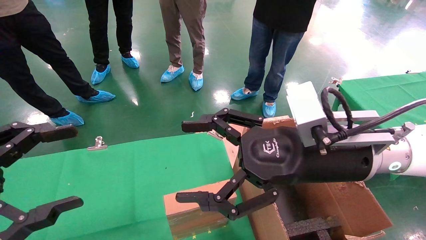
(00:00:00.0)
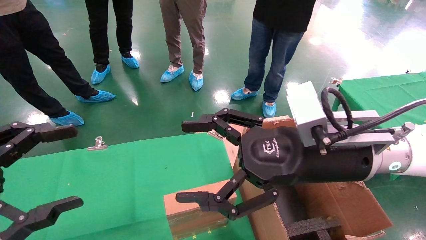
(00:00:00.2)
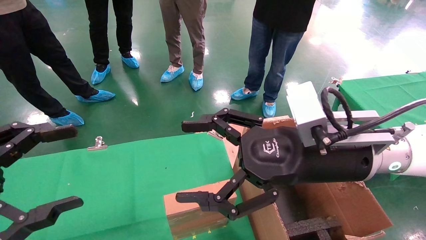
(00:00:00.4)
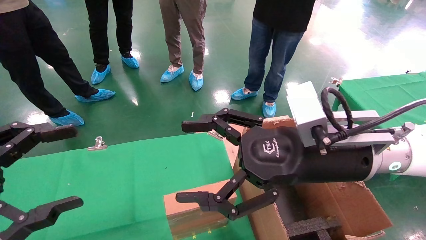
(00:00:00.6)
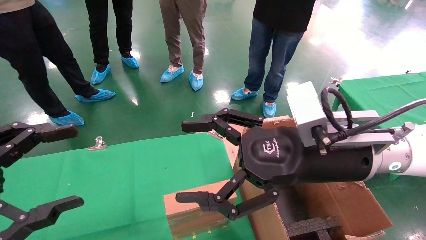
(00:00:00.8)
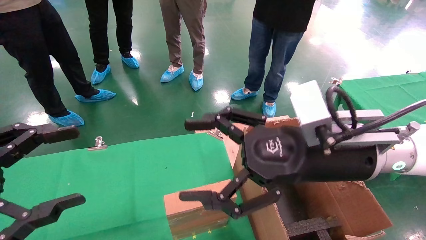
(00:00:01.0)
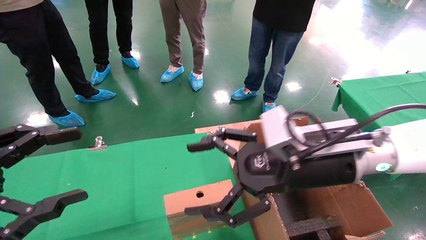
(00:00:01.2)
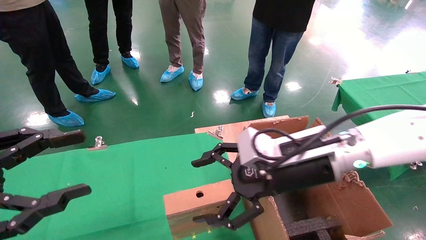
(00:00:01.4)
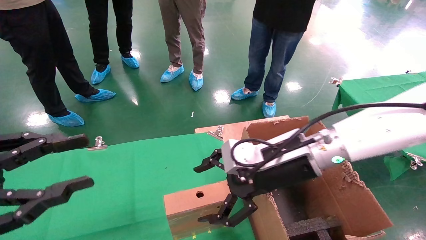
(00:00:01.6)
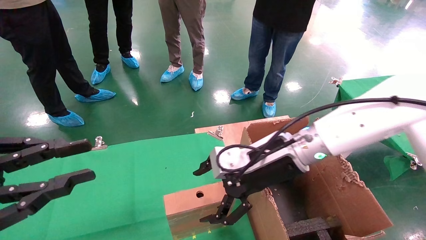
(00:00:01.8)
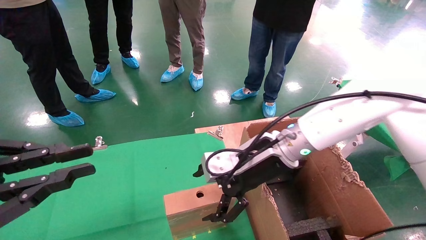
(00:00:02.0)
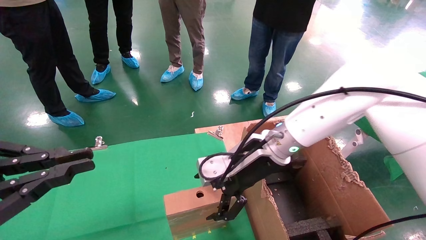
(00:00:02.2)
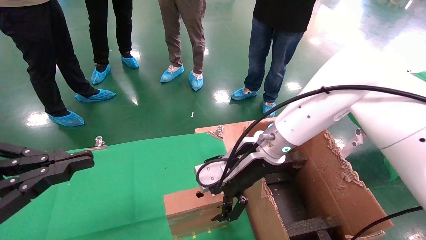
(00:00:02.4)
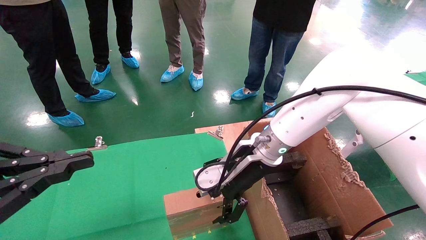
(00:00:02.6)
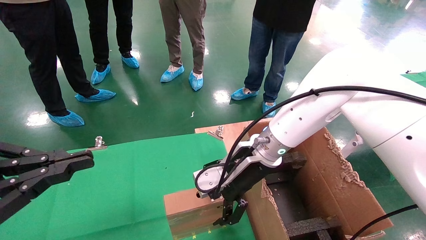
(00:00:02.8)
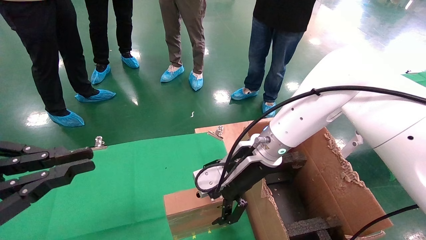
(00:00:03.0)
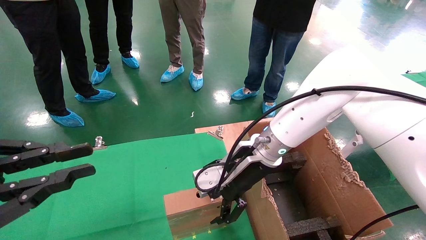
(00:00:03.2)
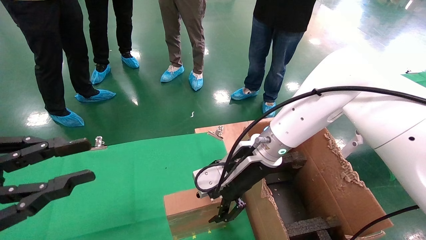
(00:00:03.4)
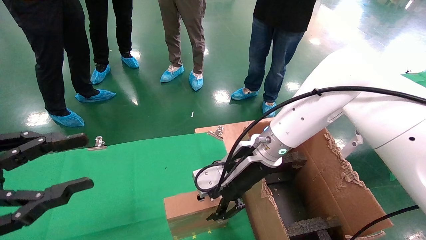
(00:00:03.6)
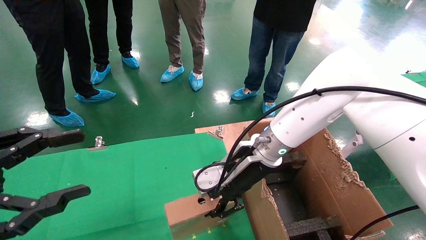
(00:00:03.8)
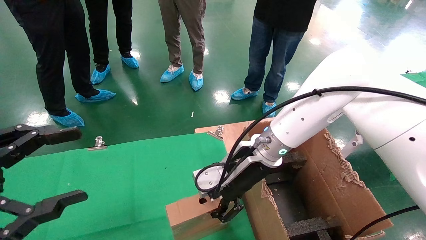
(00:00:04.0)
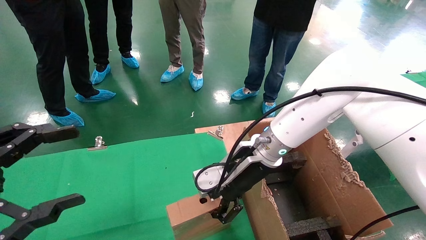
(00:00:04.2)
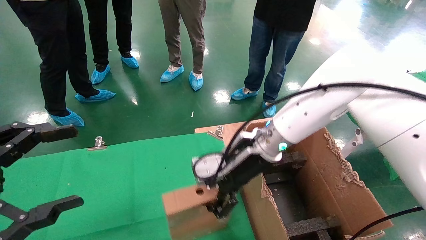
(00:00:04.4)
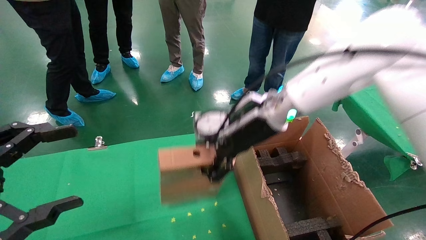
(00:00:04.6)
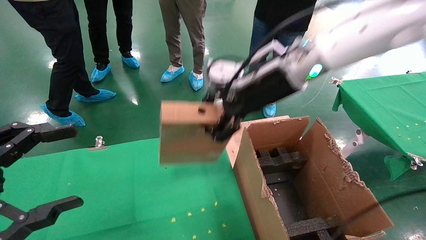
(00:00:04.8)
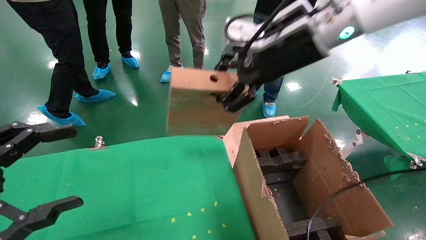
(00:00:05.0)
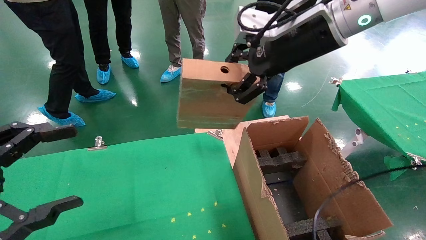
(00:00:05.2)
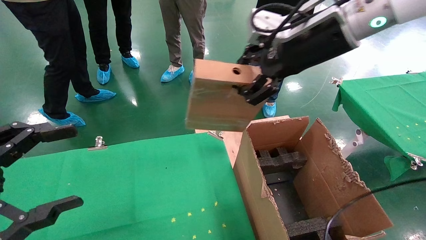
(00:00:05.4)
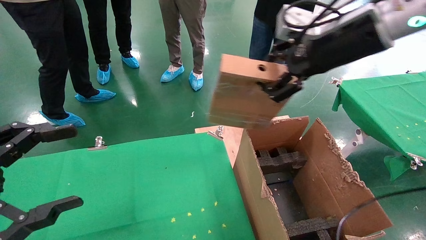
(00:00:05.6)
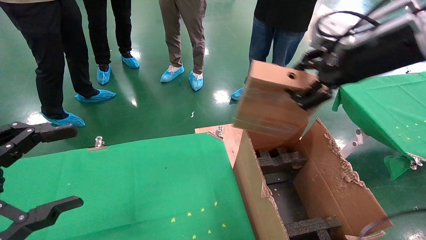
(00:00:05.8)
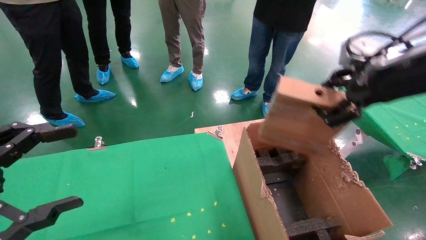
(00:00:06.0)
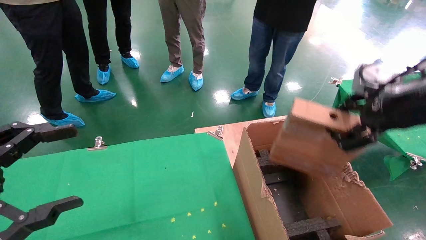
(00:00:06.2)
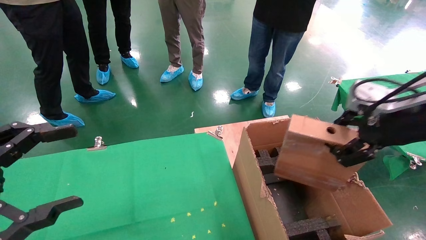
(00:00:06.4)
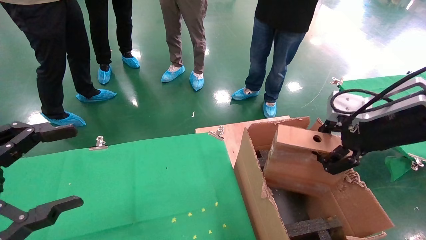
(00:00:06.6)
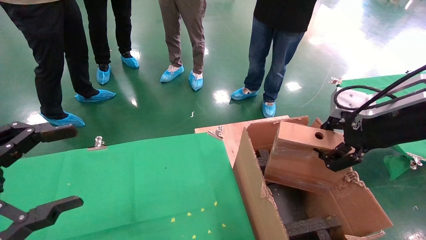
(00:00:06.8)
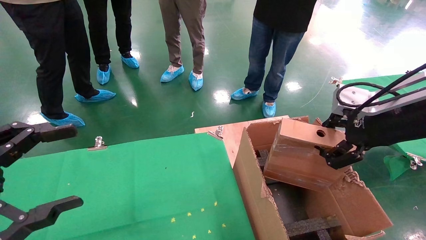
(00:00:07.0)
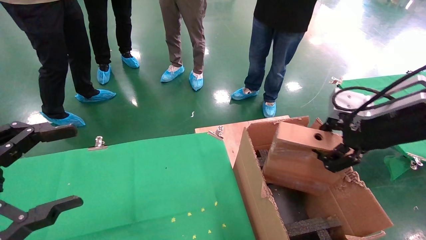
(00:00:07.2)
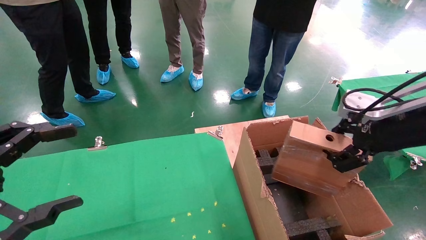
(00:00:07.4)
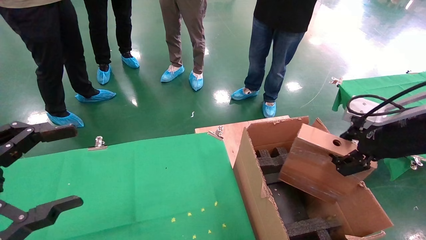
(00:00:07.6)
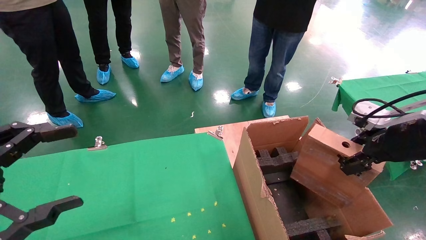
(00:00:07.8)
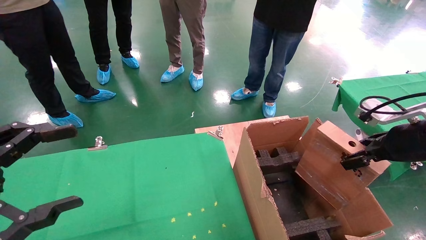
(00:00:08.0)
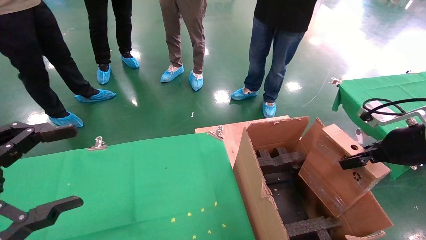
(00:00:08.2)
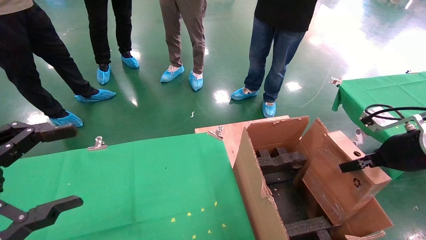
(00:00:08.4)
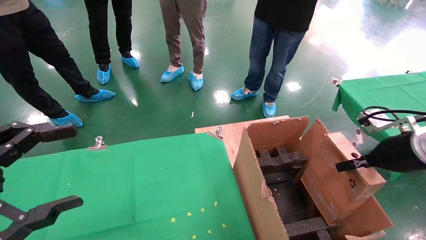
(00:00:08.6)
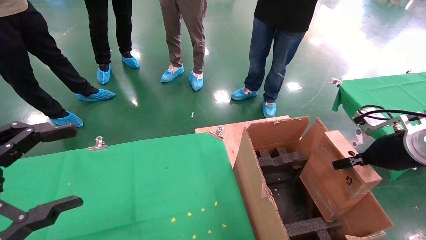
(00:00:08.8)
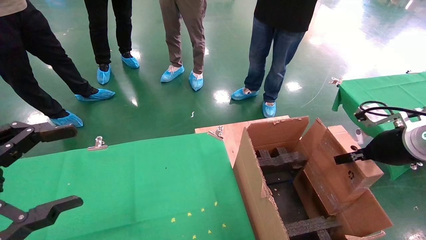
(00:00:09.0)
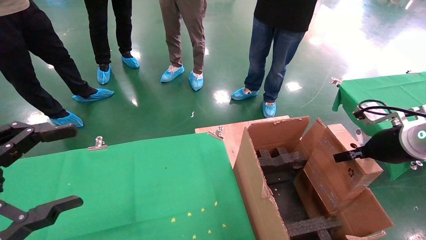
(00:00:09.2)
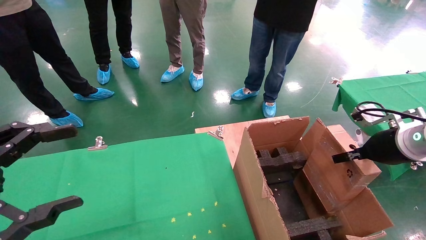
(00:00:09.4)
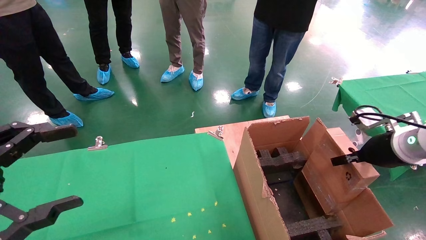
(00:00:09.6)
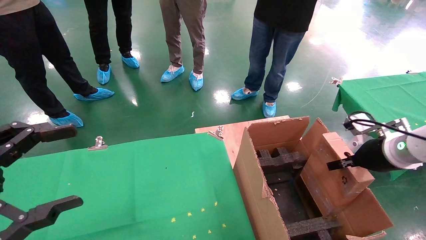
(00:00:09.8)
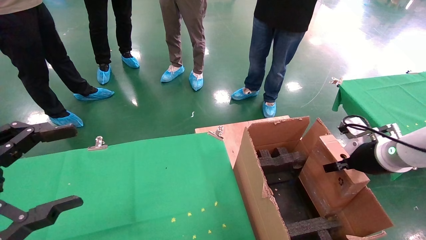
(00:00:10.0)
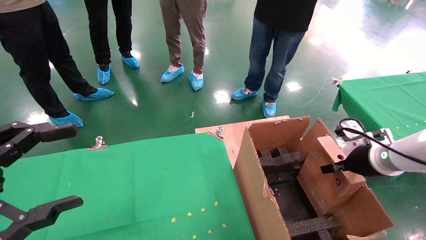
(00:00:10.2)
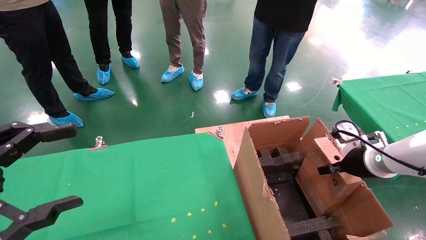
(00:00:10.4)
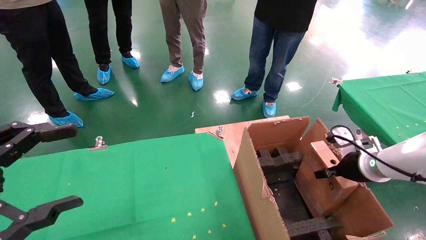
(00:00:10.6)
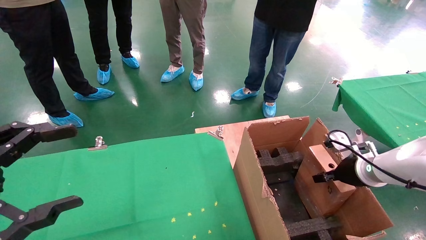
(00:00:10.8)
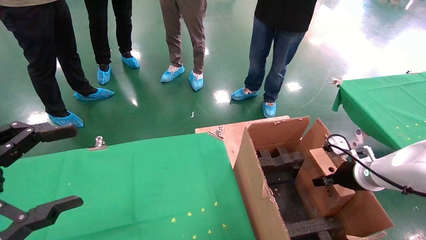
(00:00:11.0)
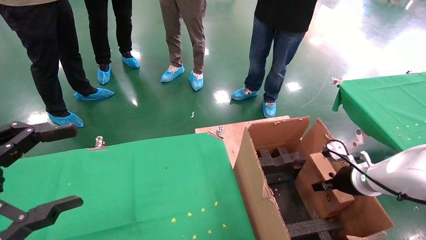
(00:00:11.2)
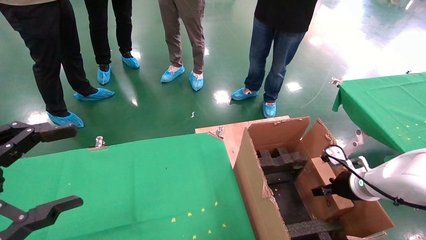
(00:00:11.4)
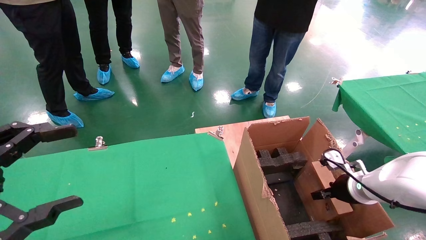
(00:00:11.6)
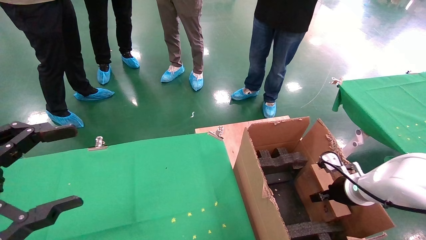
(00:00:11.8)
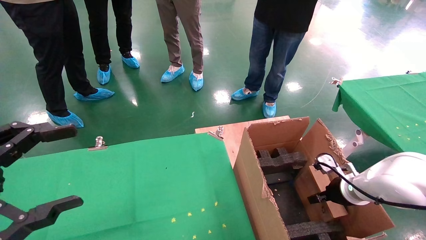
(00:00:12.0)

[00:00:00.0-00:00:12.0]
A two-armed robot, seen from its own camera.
Task of the whole recording: using a robotic arm to pick up a cardboard box and palace it the carton.
Step, 00:00:01.2 to 00:00:03.8: Pick up the mouse and the power cord paper box.
00:00:00.0 to 00:00:01.6: The left gripper closes its fingers; the right gripper goes approximately 5 cm forward.
00:00:01.6 to 00:00:03.0: The left gripper closes; the right gripper is displaced forward by about 5 cm.
00:00:03.0 to 00:00:04.4: The right gripper closes. The left gripper opens.
00:00:04.4 to 00:00:06.0: The right gripper is displaced to the right, upward and backward by approximately 30 cm.
00:00:06.0 to 00:00:07.6: The right gripper is displaced downward by about 10 cm.
00:00:07.6 to 00:00:09.0: The right gripper is displaced downward by about 5 cm.
00:00:09.0 to 00:00:10.4: The right gripper heads downward, covering some 5 cm.
00:00:10.4 to 00:00:12.0: The right gripper shifts about 10 cm downward.

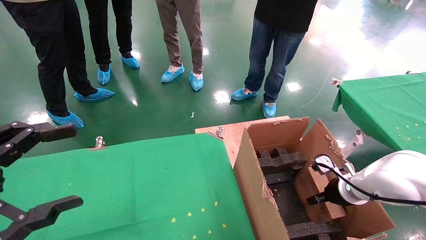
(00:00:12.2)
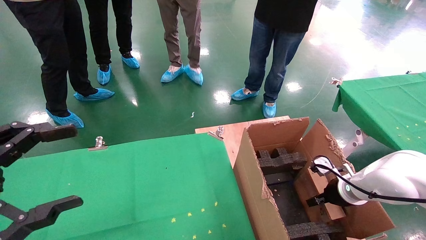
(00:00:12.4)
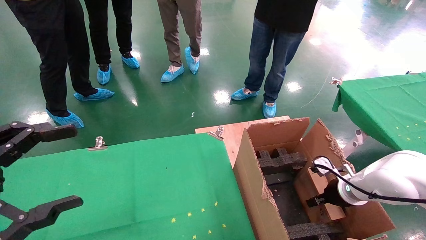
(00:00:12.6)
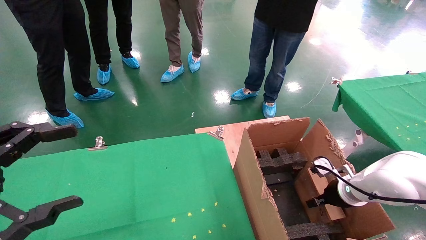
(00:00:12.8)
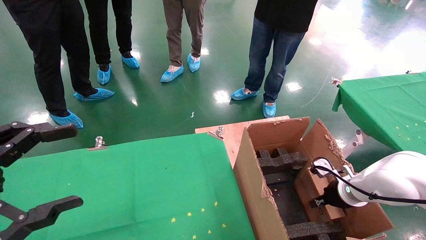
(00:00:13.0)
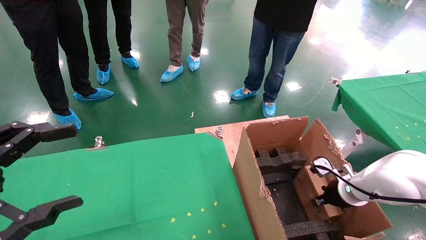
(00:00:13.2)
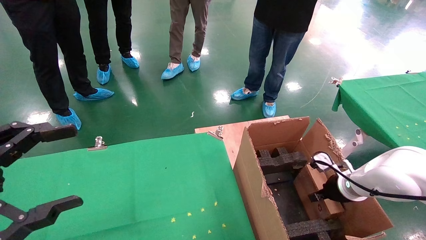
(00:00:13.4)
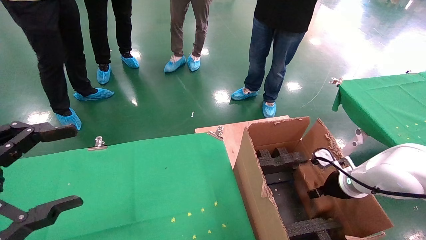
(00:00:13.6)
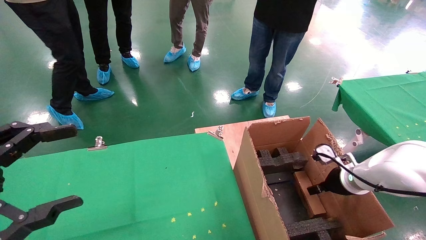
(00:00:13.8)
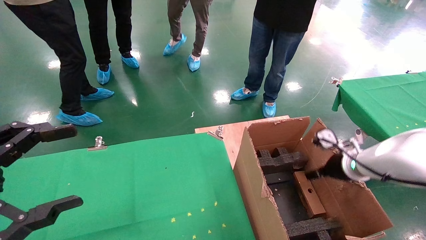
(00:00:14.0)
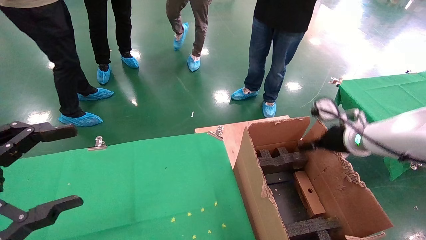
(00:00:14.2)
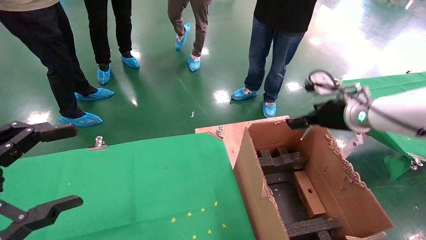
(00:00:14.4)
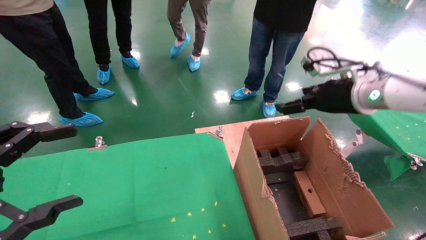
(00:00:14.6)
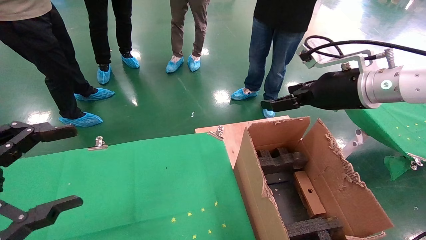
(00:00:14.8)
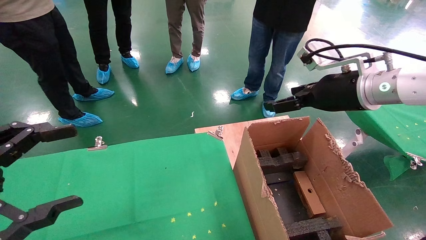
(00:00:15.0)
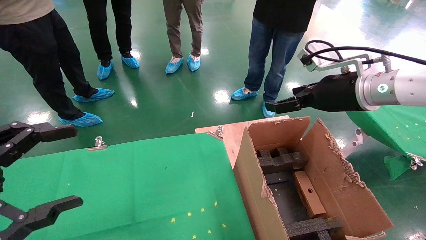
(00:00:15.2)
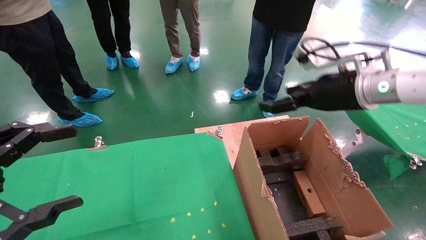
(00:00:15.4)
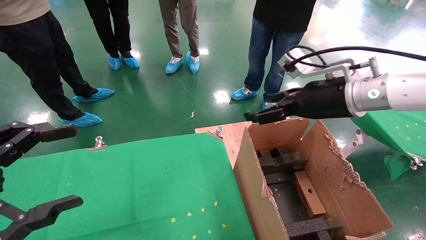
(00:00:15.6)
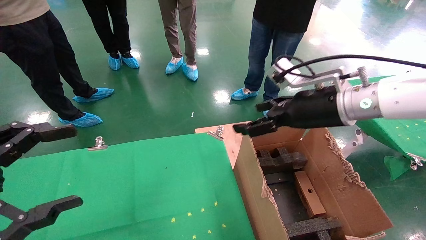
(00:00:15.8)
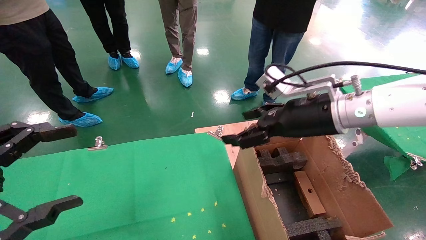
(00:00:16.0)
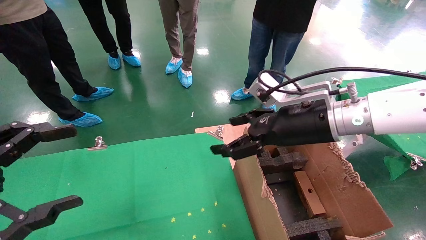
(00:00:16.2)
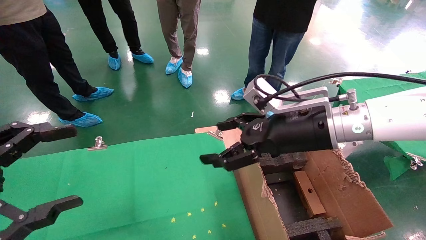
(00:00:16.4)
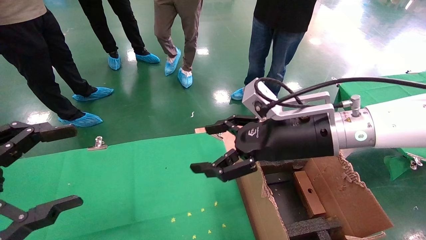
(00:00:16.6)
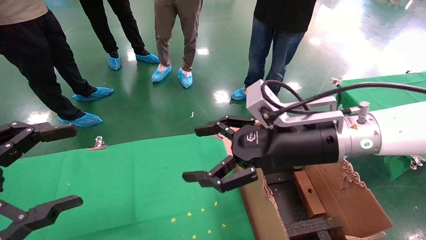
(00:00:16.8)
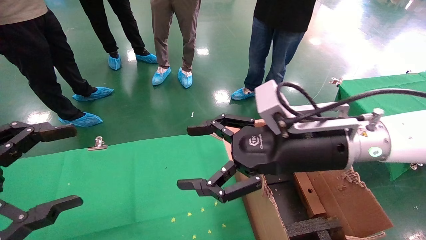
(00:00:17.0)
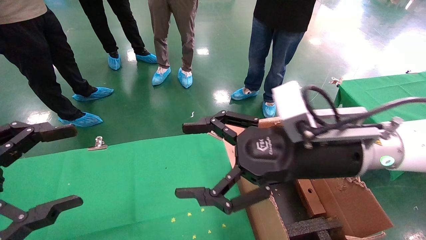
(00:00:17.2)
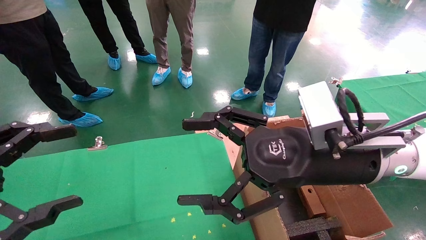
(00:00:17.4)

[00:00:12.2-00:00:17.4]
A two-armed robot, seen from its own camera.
Task of the whole recording: using a robotic arm to pick up a cardboard box and palace it the carton.
Step, 00:00:12.2 to 00:00:14.2: Place the mouse and the power cord paper box into the container.
00:00:12.2 to 00:00:14.0: The right gripper heads upward, covering roughly 10 cm, and opens.
00:00:14.0 to 00:00:15.6: The right gripper is displaced upward and to the left by roughly 20 cm.
00:00:15.6 to 00:00:17.4: The right gripper shifts about 10 cm backward and to the left.
